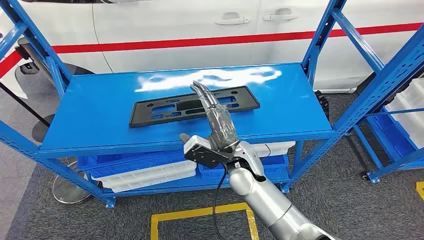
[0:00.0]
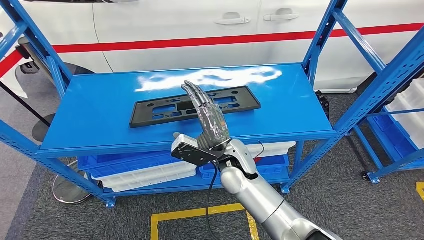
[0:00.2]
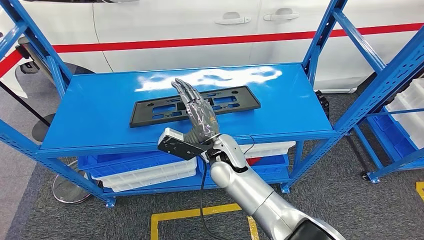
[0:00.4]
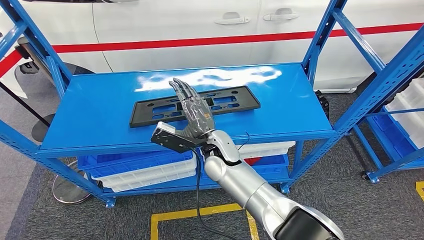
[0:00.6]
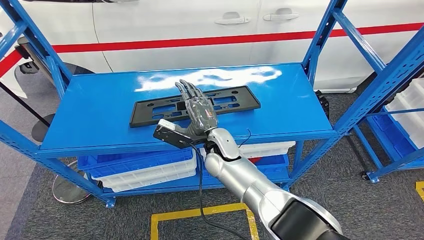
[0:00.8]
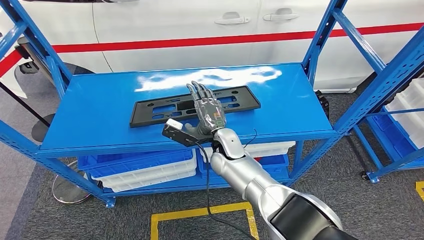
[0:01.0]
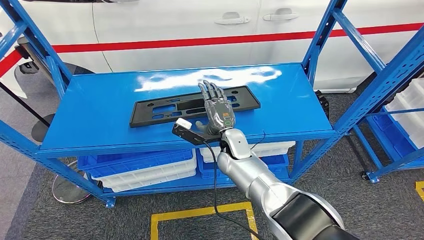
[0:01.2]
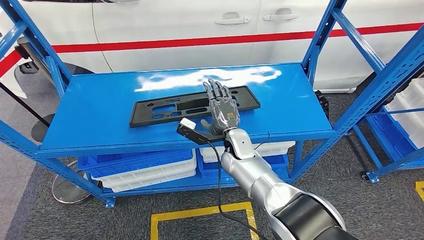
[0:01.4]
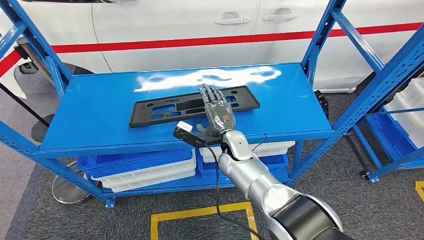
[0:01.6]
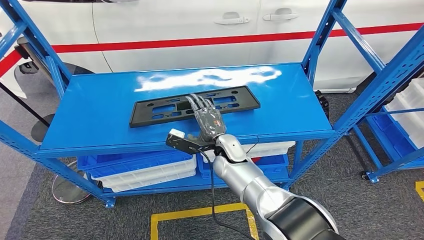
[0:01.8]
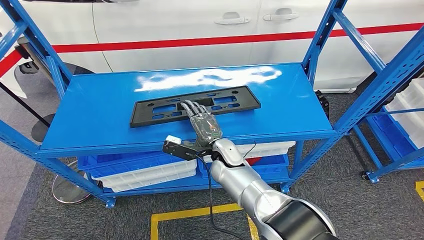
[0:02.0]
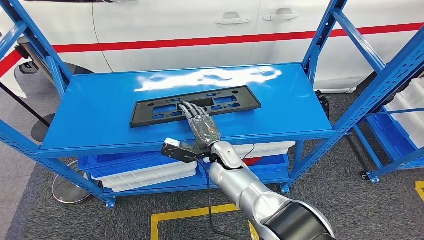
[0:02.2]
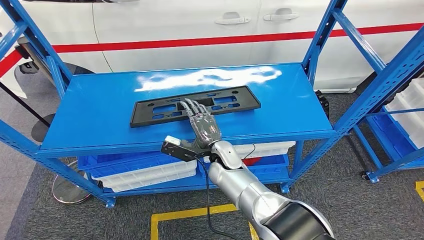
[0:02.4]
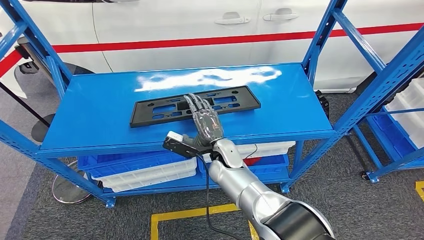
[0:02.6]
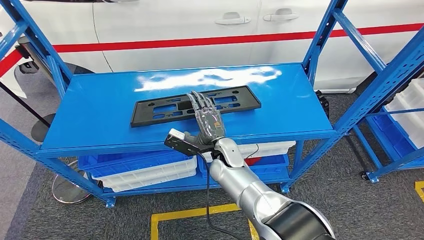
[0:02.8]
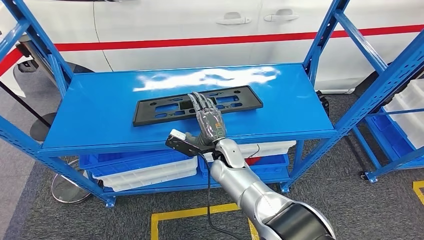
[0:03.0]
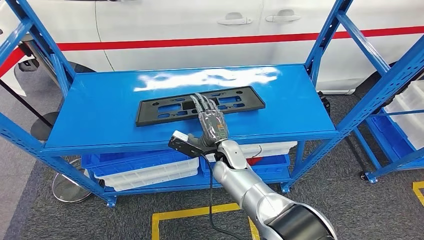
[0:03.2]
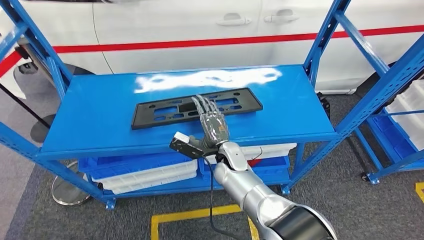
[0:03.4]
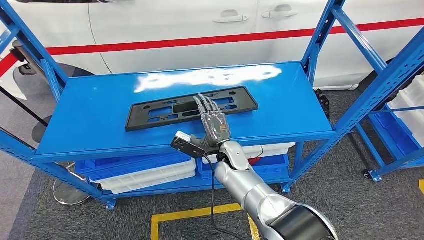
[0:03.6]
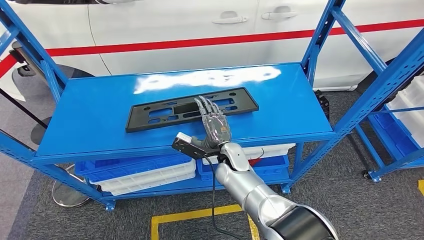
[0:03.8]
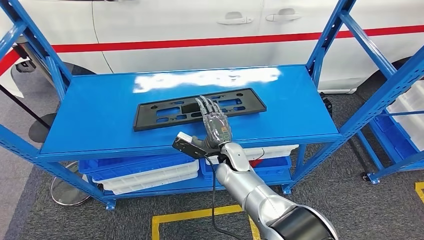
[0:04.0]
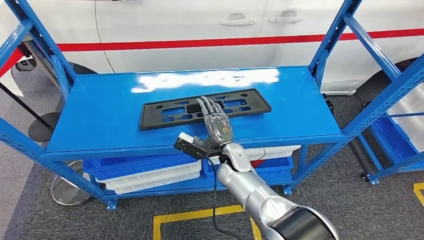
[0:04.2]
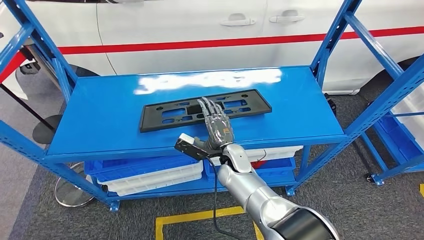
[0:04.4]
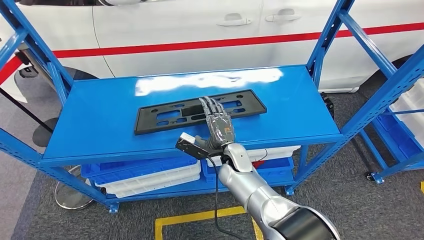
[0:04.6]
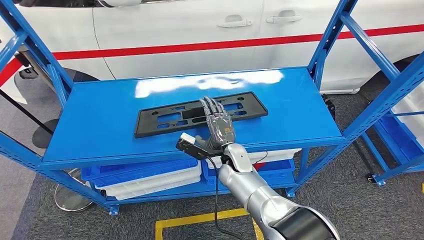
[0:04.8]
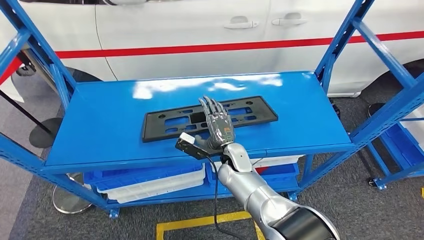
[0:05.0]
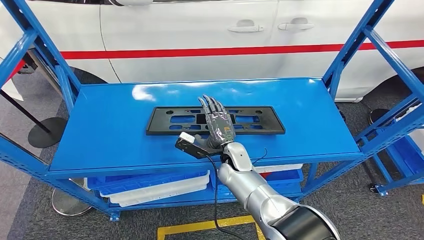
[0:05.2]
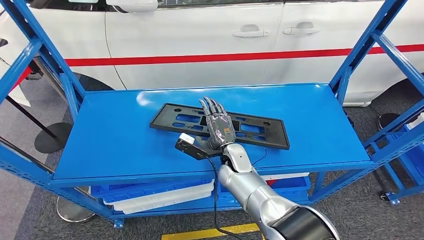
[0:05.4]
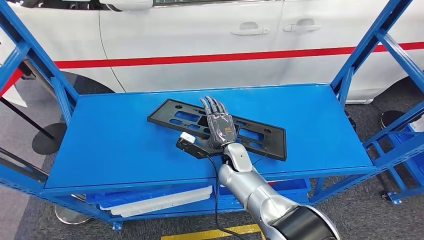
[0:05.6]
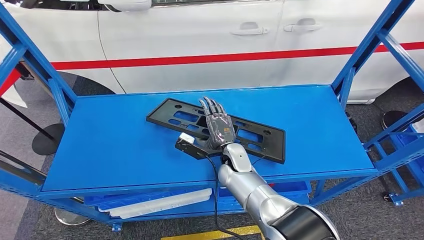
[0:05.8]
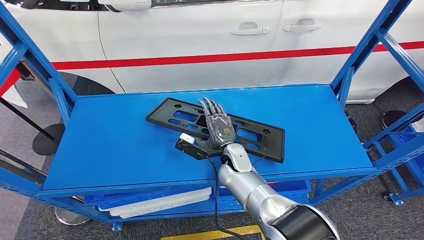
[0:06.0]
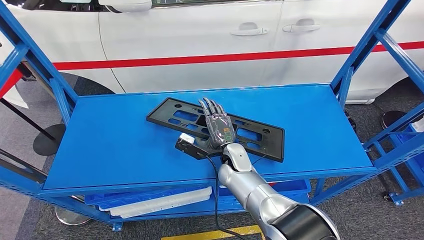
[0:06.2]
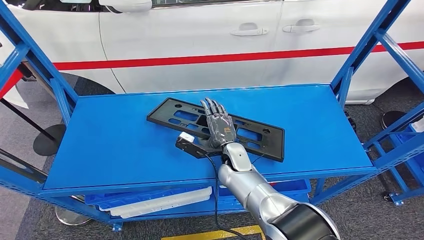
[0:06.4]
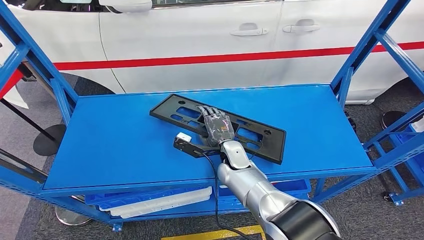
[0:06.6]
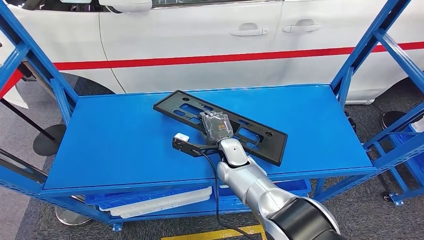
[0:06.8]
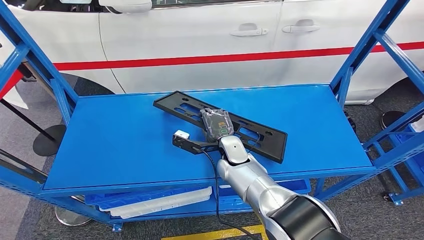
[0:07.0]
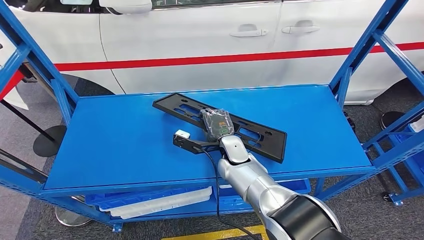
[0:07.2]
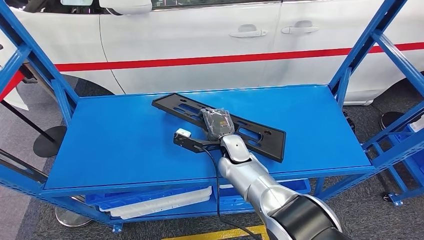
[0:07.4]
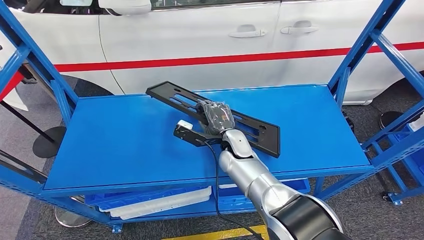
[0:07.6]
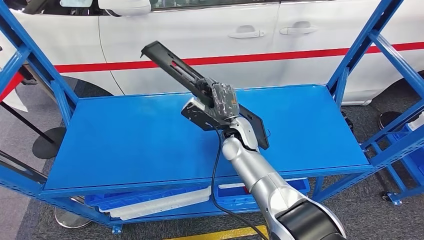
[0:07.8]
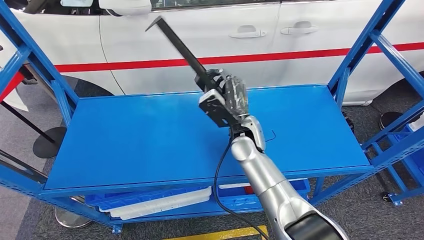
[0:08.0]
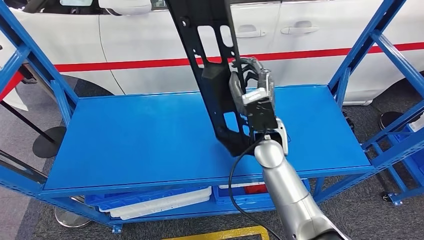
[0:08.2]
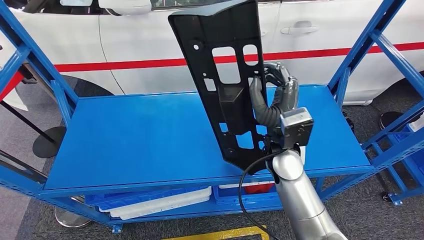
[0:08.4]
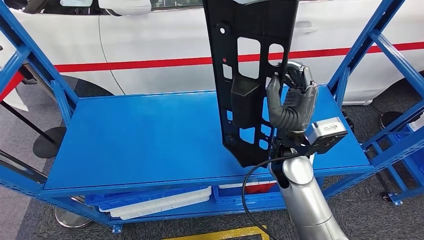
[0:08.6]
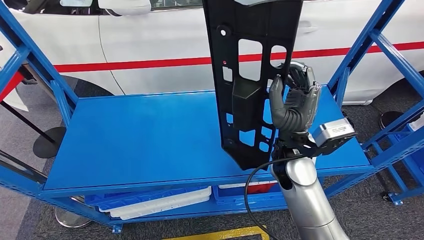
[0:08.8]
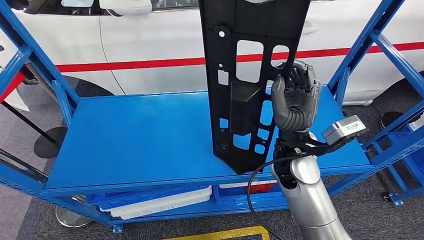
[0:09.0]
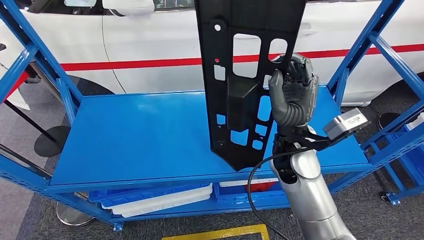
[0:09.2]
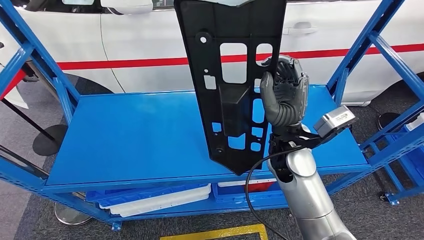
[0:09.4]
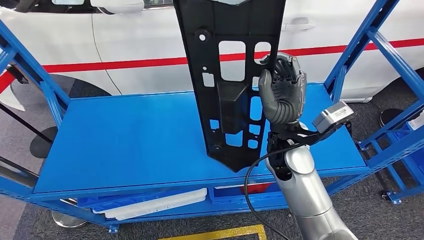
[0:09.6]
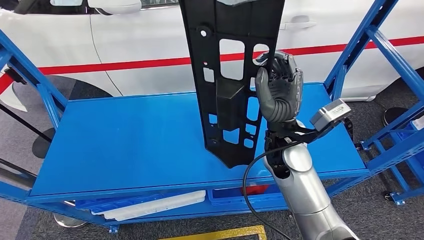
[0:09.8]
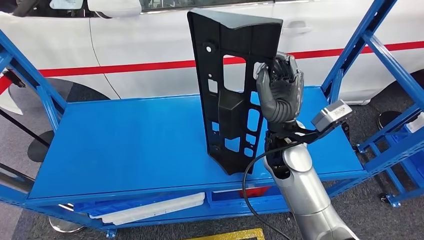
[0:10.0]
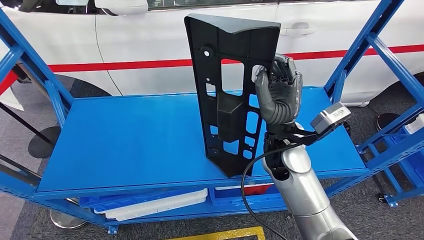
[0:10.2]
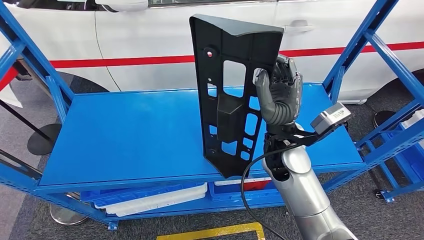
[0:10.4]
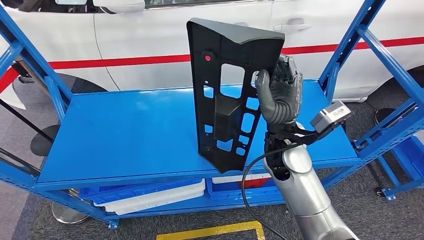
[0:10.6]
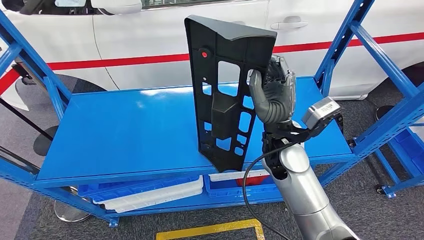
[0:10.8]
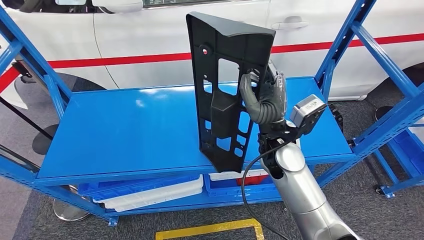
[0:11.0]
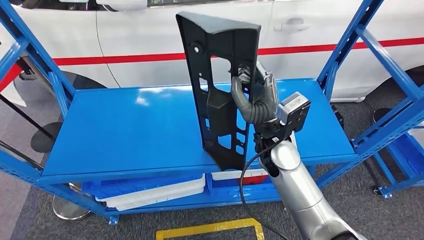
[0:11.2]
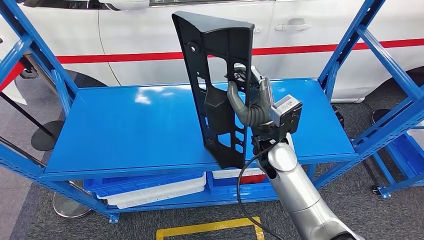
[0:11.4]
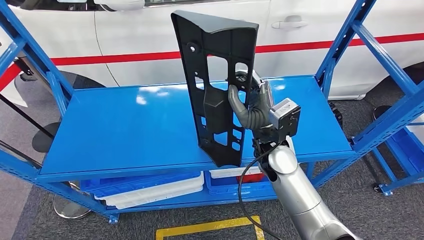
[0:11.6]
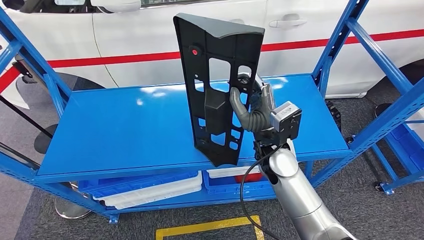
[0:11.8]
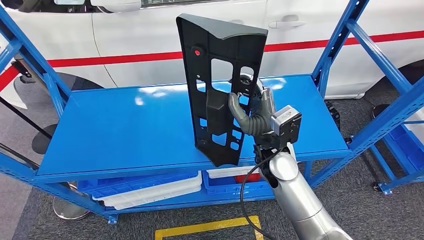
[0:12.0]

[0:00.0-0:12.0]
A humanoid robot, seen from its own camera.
0:01.6 to 0:03.0: The hands move only a little.

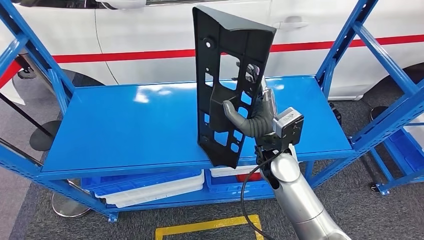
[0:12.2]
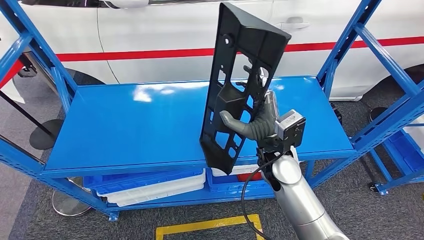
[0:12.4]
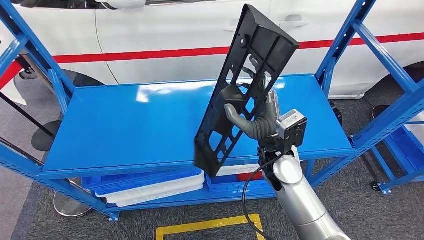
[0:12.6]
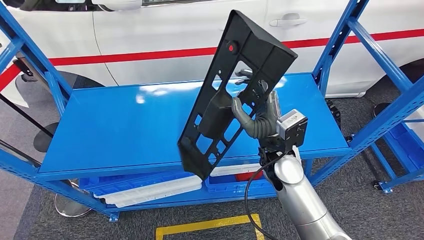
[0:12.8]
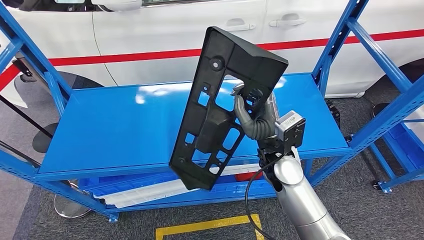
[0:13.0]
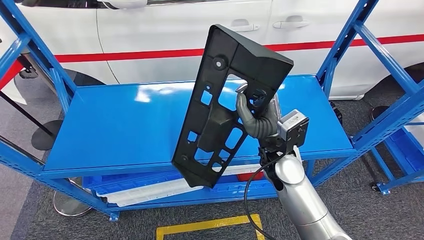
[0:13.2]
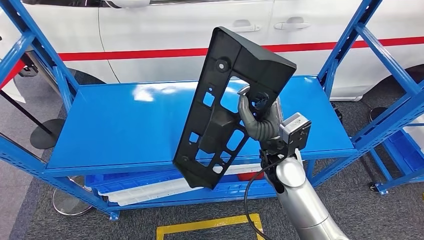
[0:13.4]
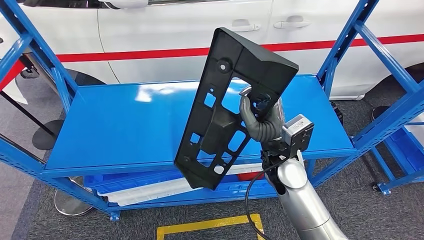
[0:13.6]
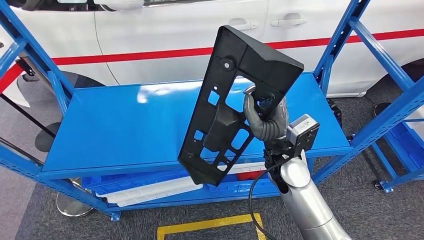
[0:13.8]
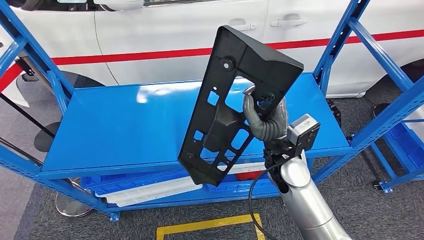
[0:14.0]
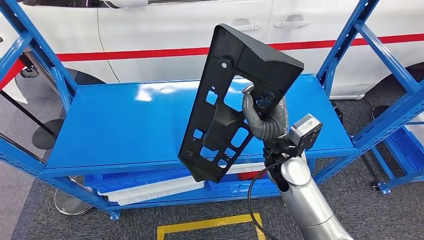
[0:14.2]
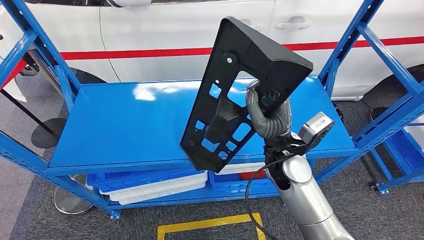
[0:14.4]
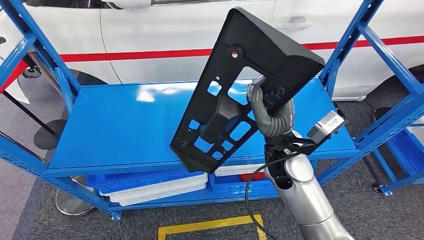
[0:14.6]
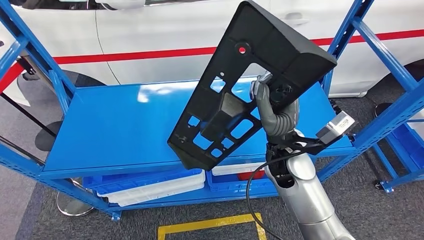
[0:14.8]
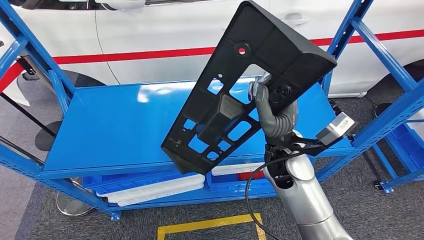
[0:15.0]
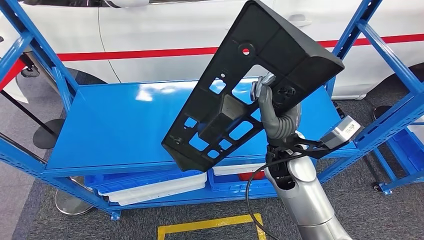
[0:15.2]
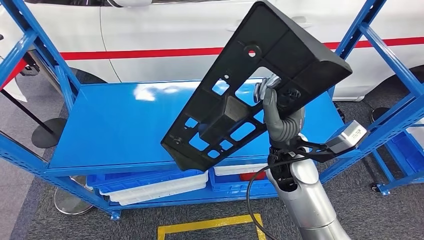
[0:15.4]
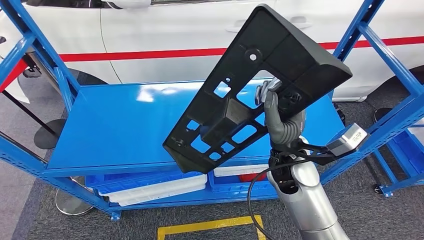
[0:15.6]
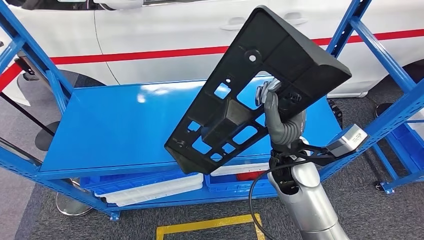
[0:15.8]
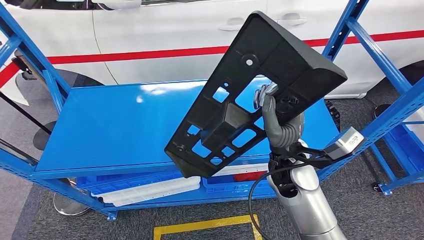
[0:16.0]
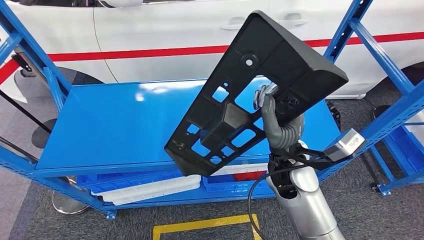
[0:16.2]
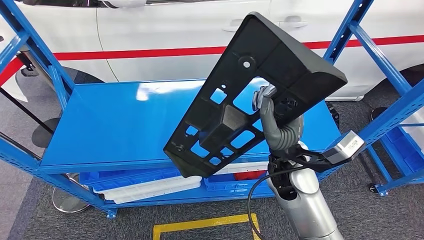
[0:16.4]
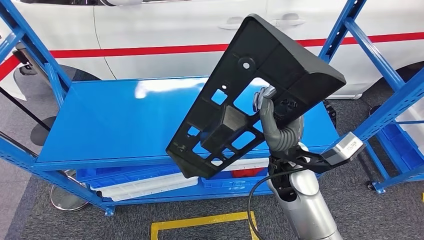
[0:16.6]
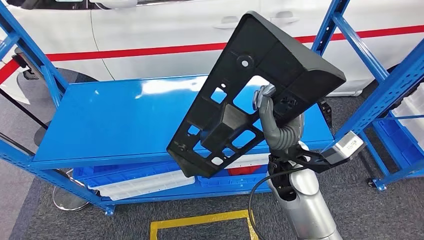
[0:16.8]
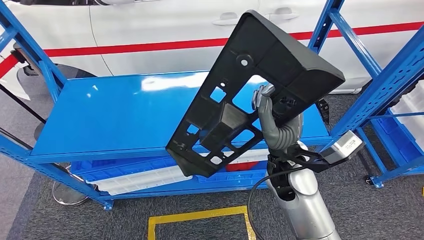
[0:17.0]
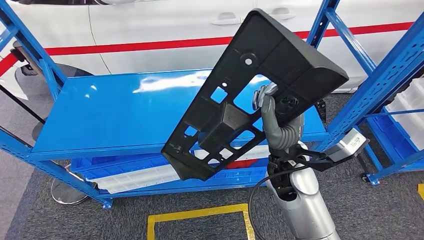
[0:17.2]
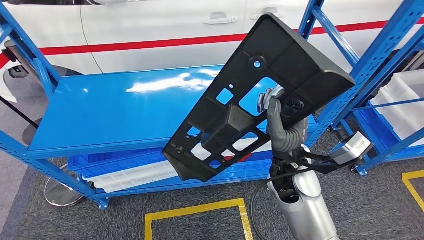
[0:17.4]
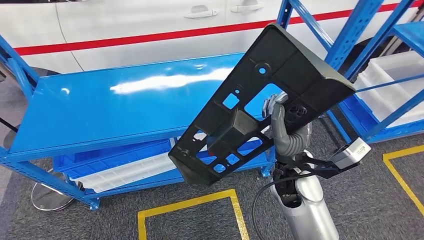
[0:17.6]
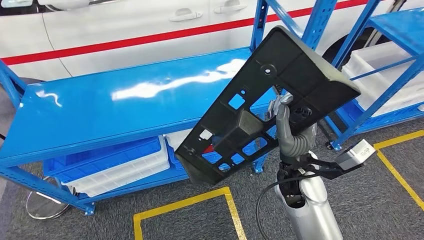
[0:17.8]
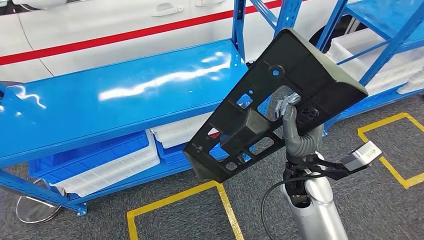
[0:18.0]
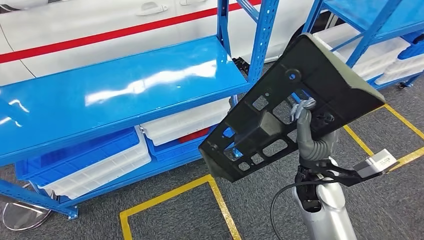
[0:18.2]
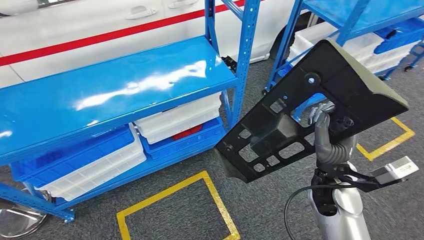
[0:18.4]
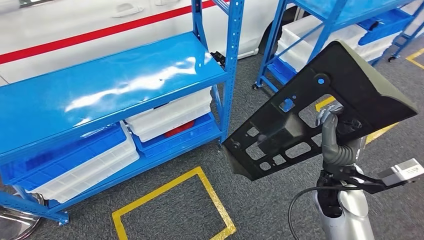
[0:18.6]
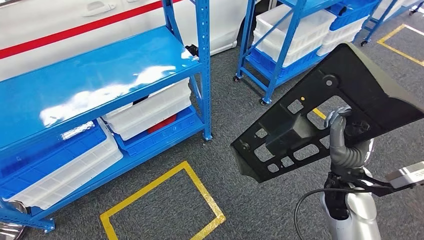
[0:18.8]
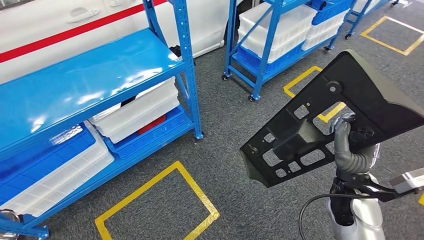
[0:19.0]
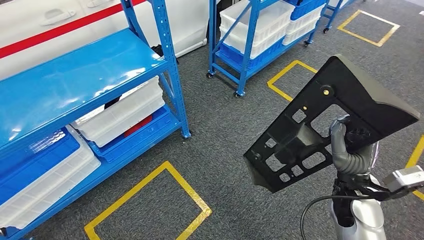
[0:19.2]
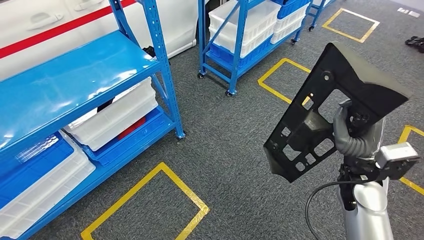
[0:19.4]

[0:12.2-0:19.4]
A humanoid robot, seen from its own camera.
Step, 0:12.2 to 0:18.0: Pick up the large material from the shelf.
